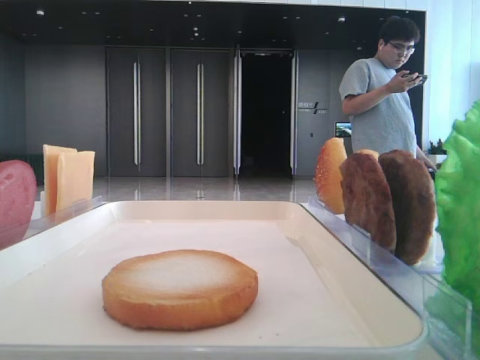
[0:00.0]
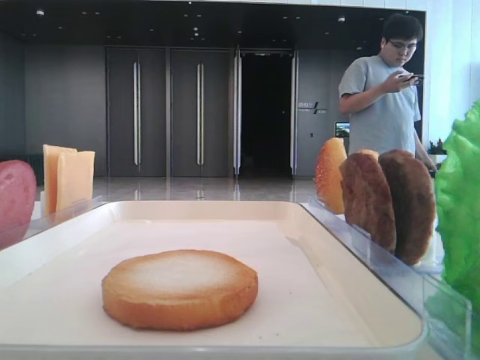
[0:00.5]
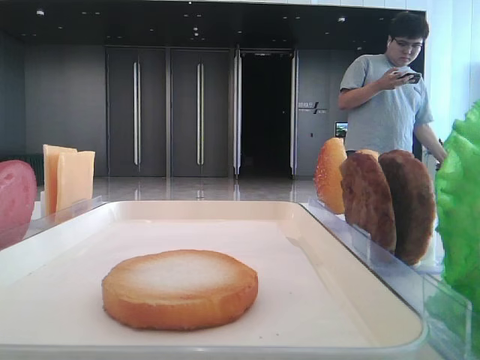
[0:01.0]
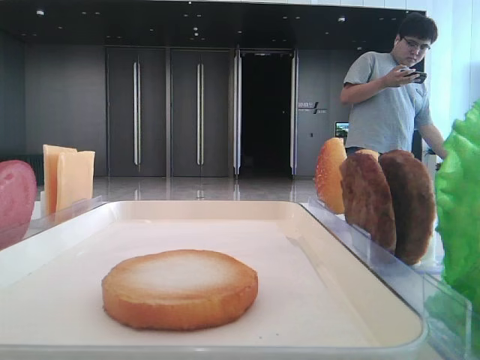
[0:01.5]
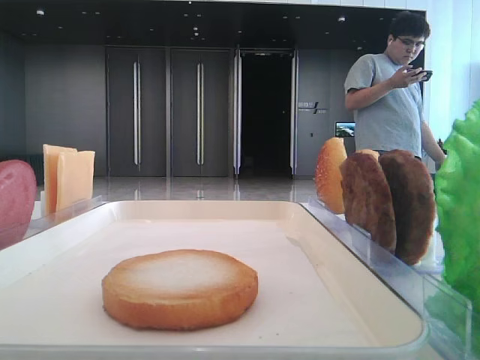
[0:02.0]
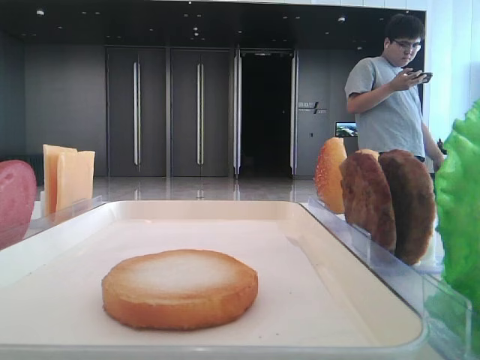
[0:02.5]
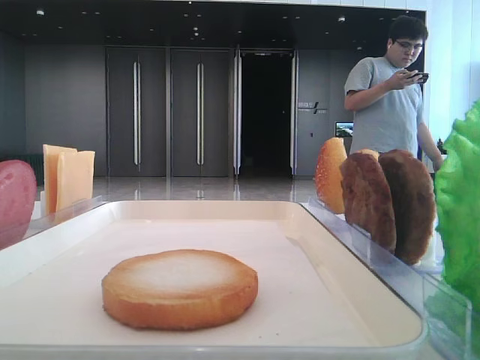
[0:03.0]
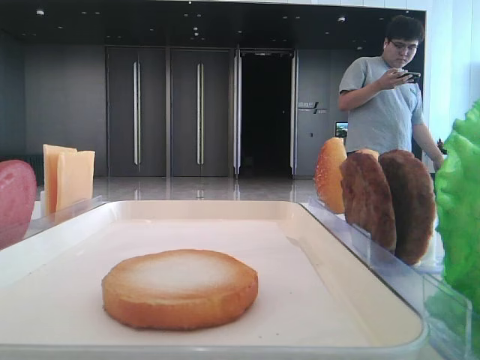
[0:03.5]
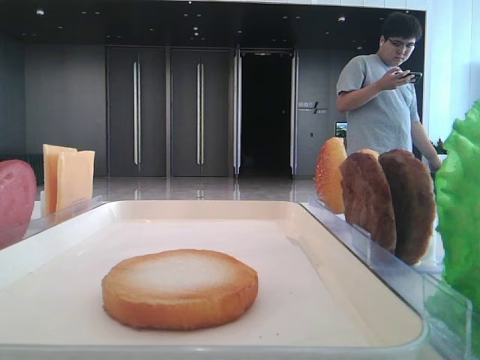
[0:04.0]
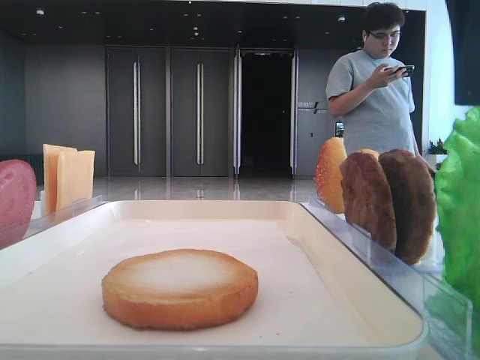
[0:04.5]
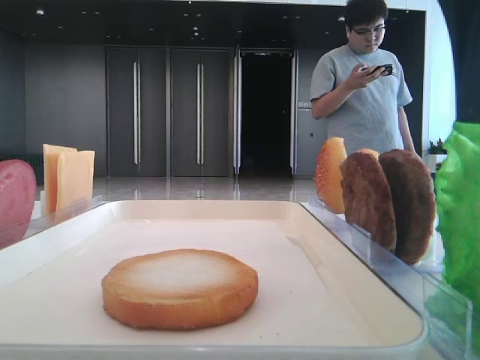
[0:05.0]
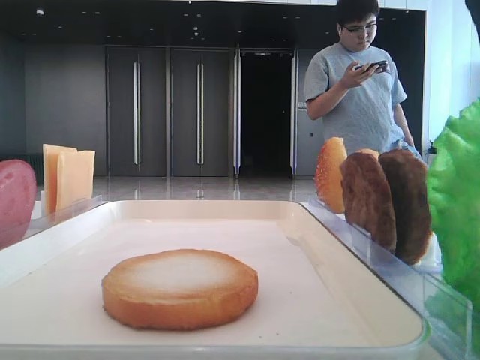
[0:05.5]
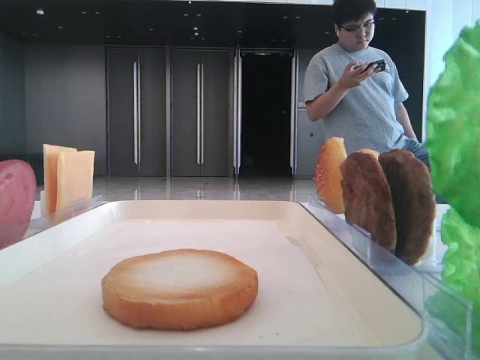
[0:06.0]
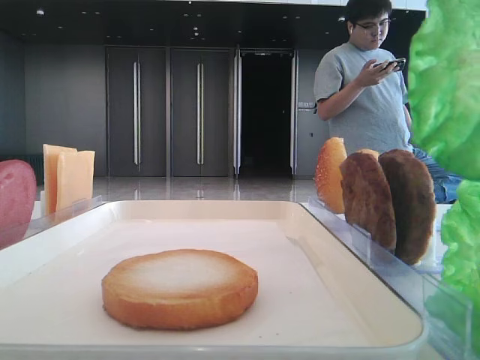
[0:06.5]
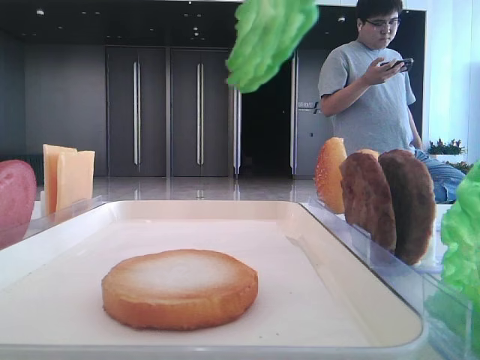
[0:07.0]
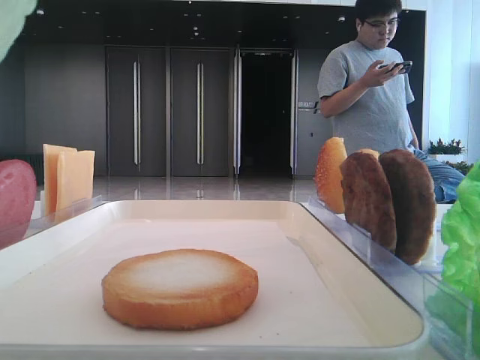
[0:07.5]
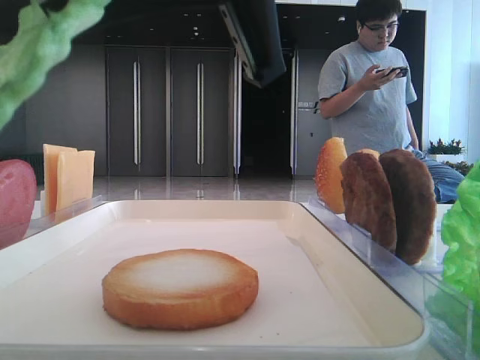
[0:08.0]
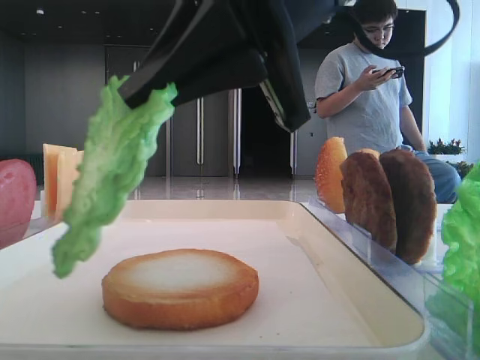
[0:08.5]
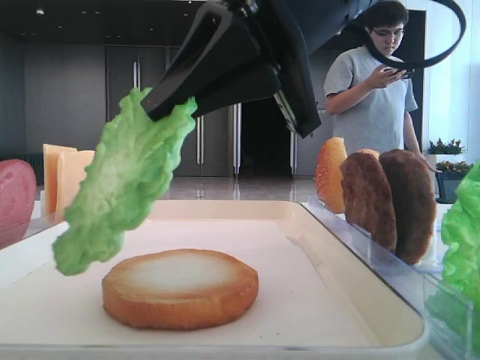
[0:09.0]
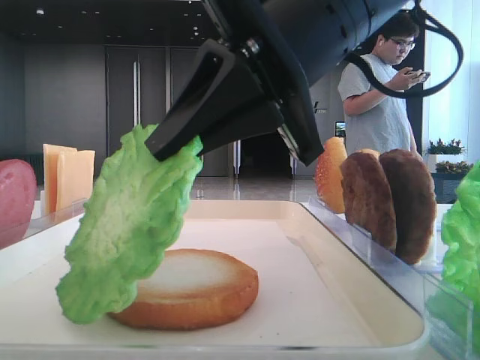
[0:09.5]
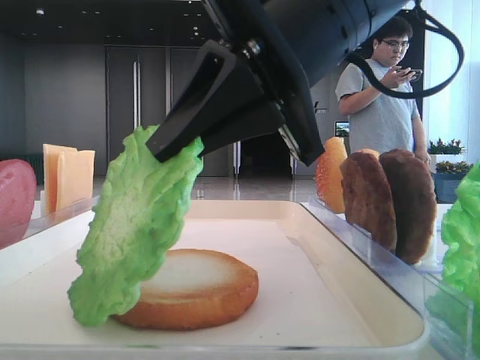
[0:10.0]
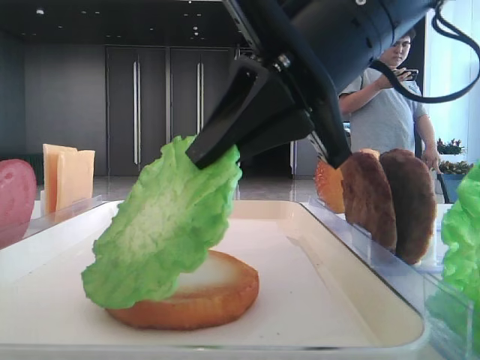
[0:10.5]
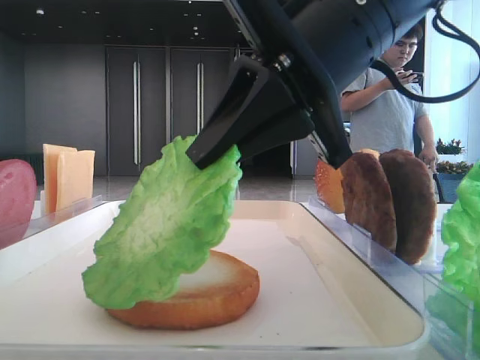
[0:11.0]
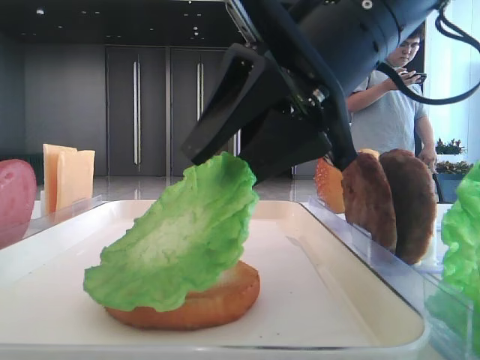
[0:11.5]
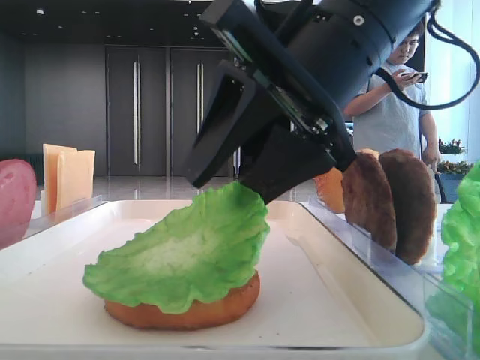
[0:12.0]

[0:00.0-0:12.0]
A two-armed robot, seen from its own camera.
Step, 0:00.0 to 0:05.0: Grab the lettuce leaf with the right hand.
0:02.0 to 0:04.0: The right gripper goes some 15 cm to the left and forward.
0:04.0 to 0:06.0: The right gripper closes its fingers.
0:06.0 to 0:08.0: The right gripper heads to the left, covering approximately 15 cm.
0:08.0 to 0:10.0: The right gripper moves some 5 cm.
0:10.0 to 0:12.0: The right gripper opens.

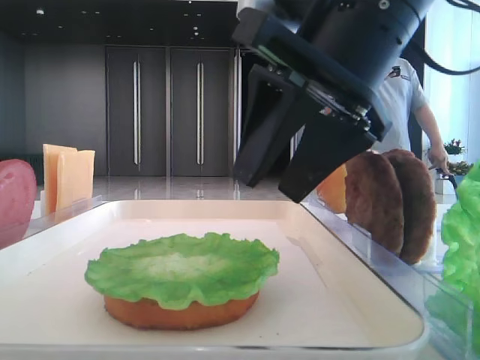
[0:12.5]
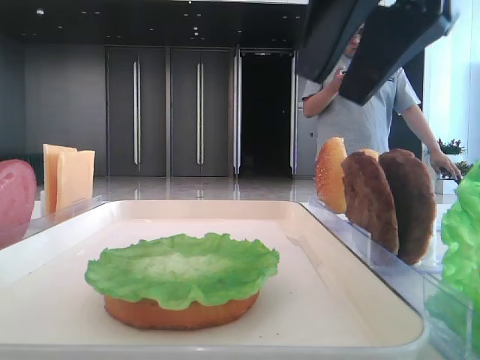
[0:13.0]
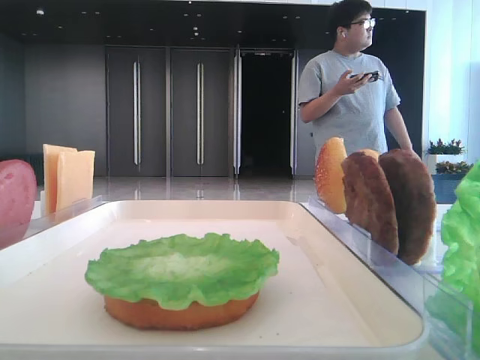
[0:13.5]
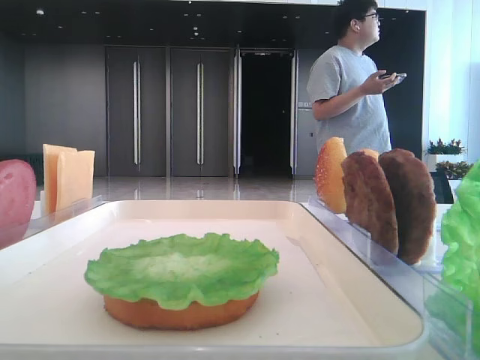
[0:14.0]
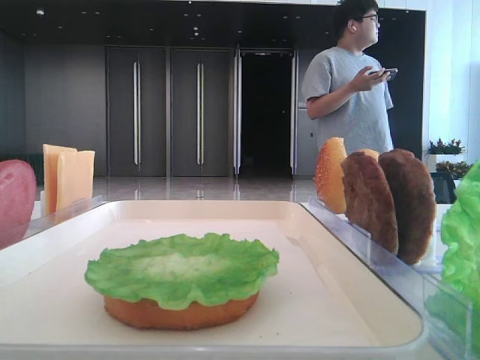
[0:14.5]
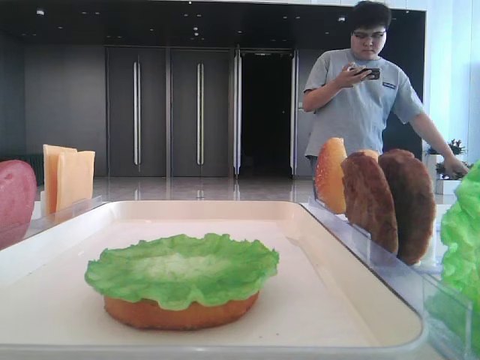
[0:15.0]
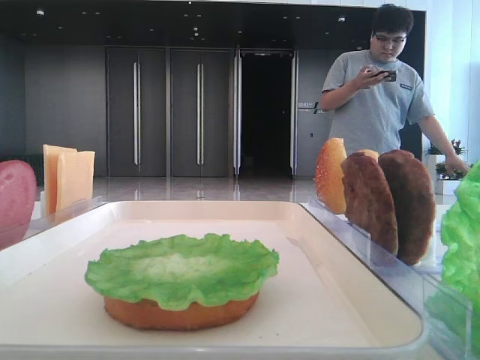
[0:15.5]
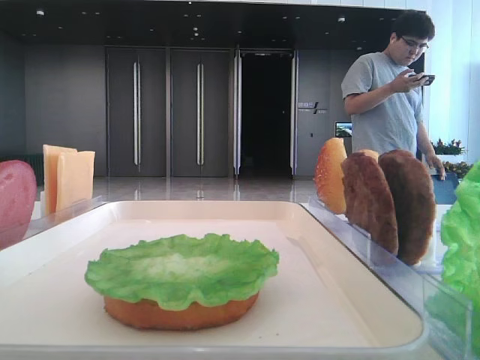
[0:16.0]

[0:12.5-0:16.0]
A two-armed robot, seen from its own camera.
0:12.5 to 0:14.5: The right gripper is displaced to the right and upward by roughly 25 cm.
0:14.5 to 0:16.0: The right gripper heads backward, covering roughly 20 cm.

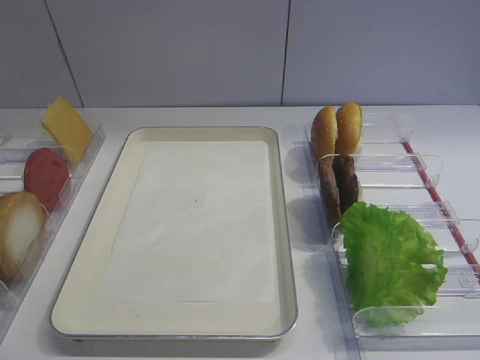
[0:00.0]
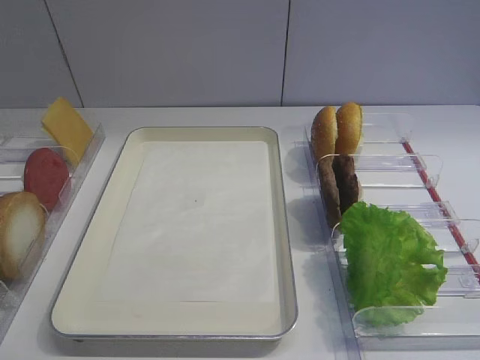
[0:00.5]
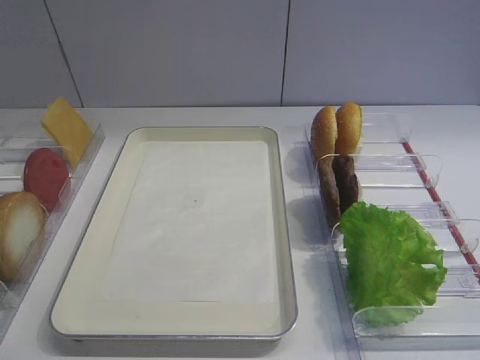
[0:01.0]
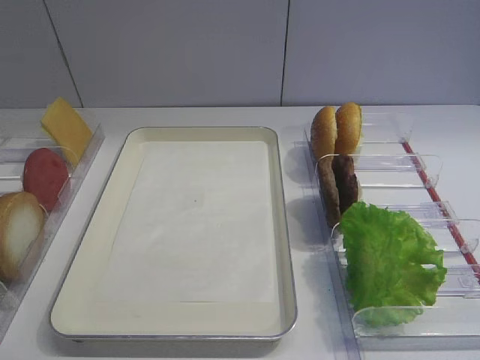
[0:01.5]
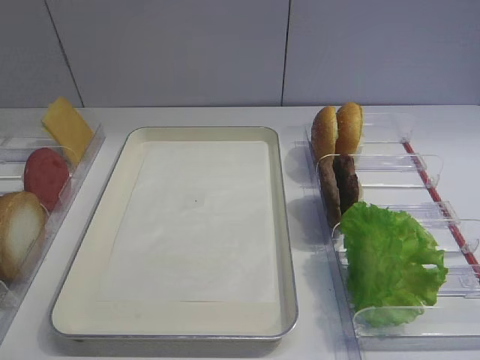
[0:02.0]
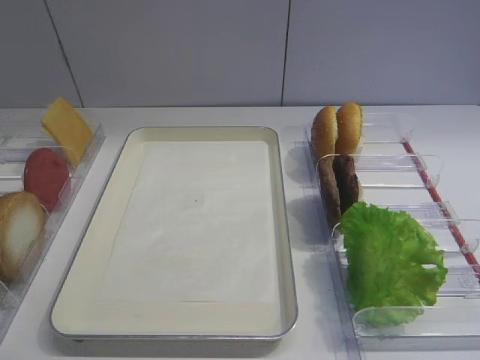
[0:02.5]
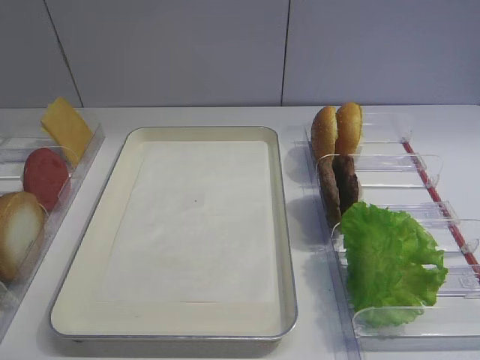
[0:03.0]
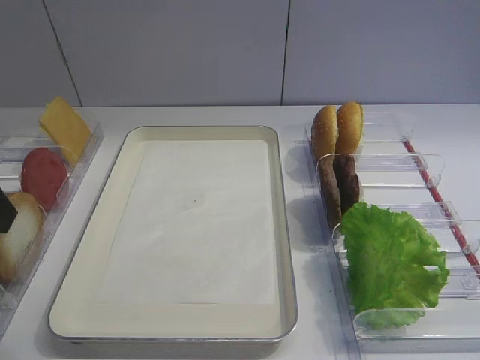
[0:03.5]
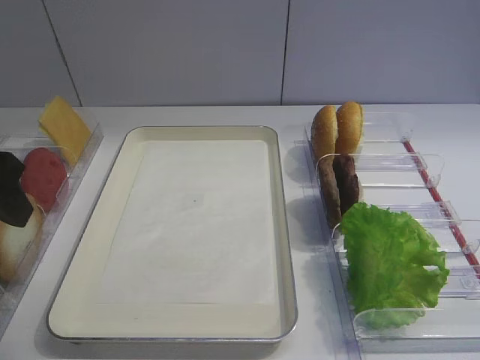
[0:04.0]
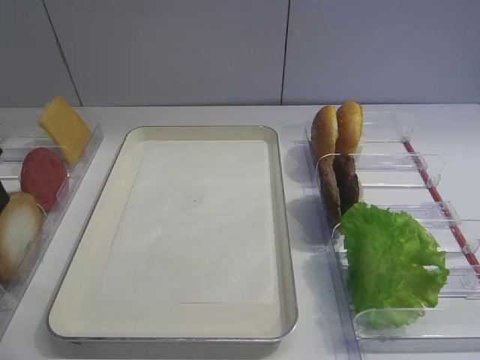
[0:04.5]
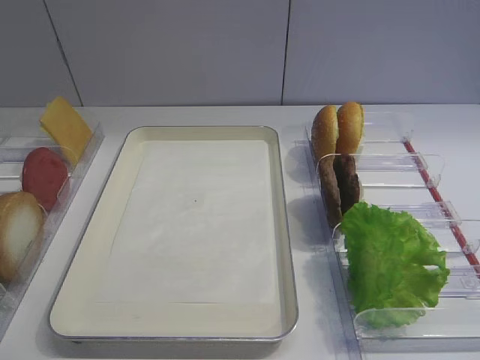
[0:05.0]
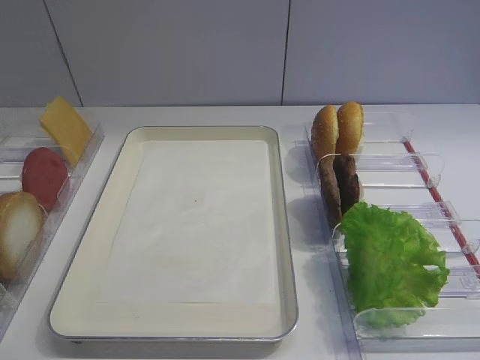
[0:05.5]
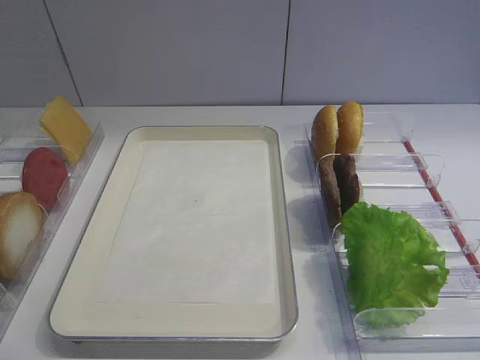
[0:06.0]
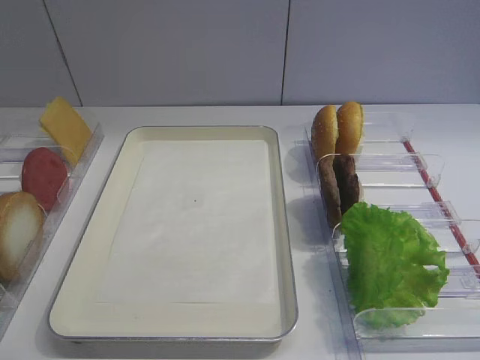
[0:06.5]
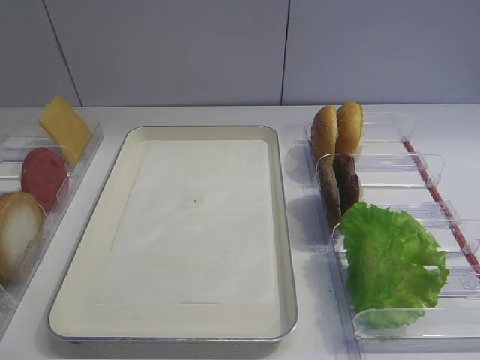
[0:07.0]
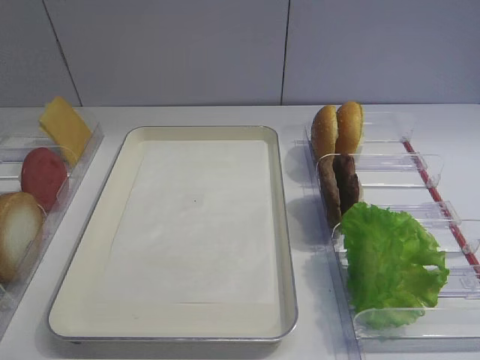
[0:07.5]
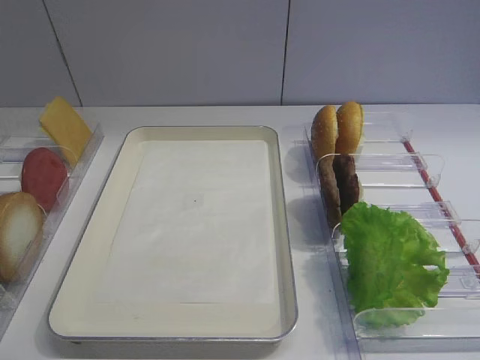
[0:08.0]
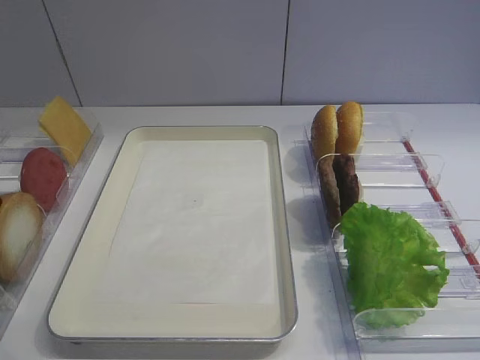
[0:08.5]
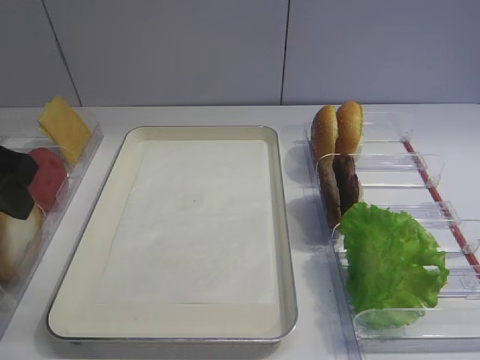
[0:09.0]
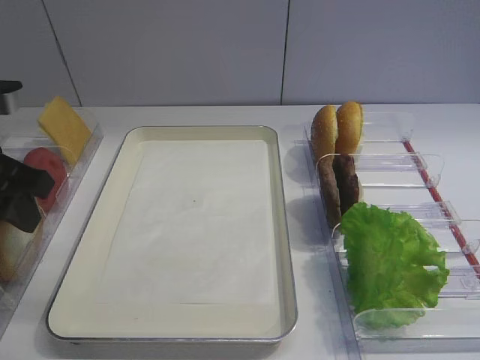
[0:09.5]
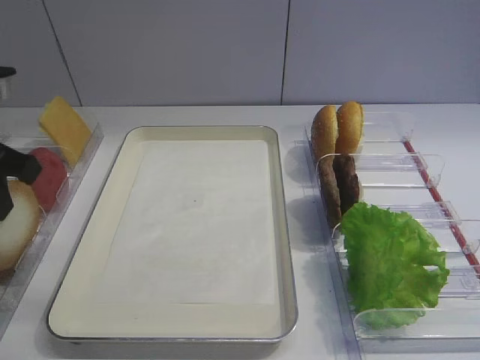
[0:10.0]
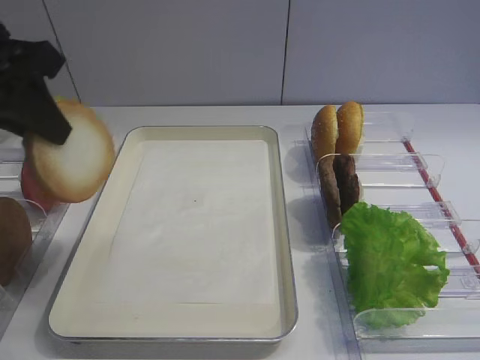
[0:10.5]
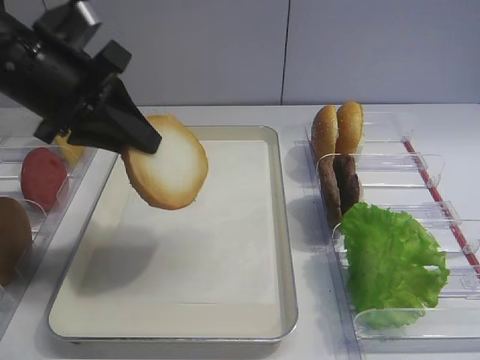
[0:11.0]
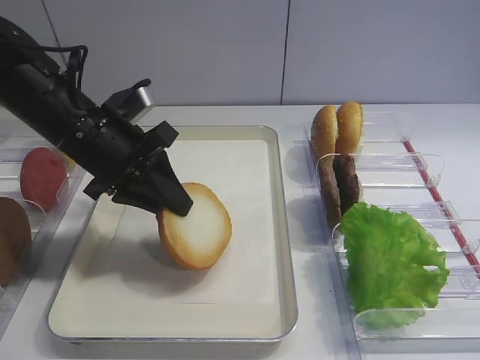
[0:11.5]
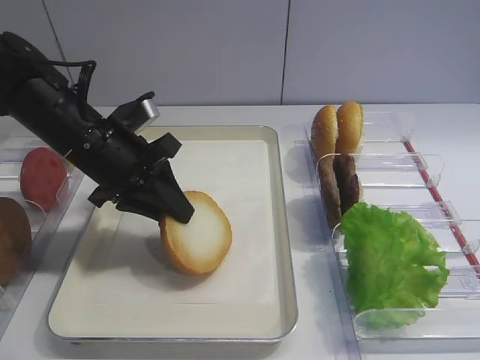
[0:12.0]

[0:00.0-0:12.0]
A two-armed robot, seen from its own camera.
Step, 0:00.0 to 0:10.0: Pick up the bread slice with the left gripper.
0:02.0 to 0:04.0: The left gripper is displaced forward by some 20 cm.
0:04.0 to 0:06.0: The left gripper shifts some 25 cm backward.
0:08.0 to 0:10.0: The left gripper travels forward by approximately 20 cm, and closes.
0:10.0 to 0:12.0: The left gripper moves to the right, downward and forward, roughly 15 cm.
